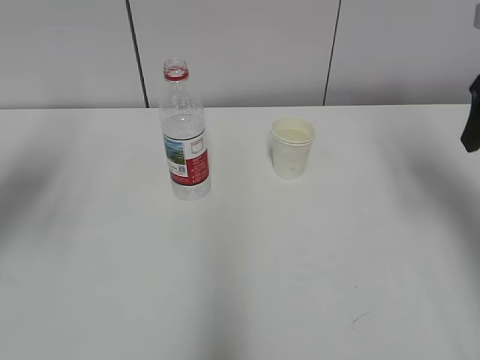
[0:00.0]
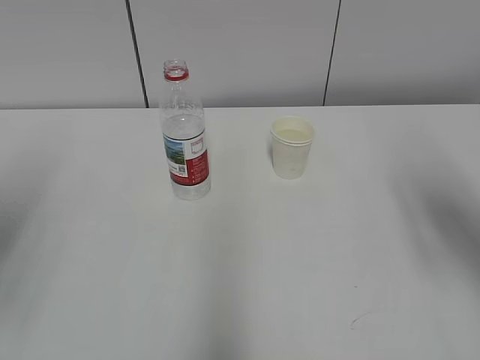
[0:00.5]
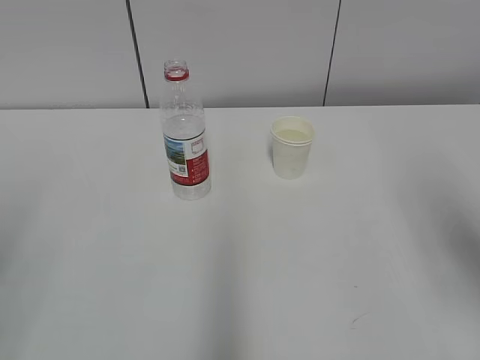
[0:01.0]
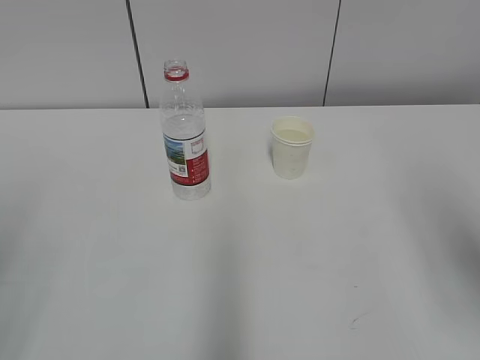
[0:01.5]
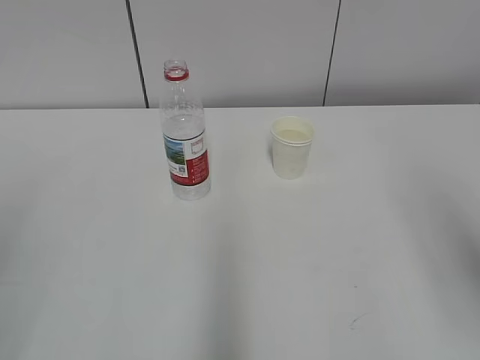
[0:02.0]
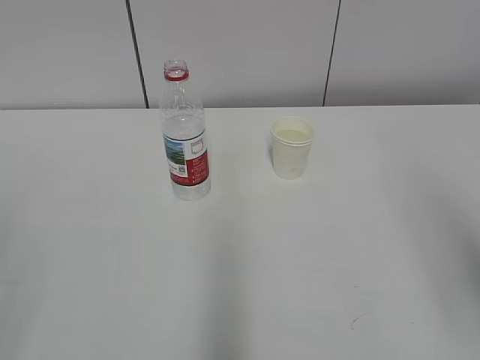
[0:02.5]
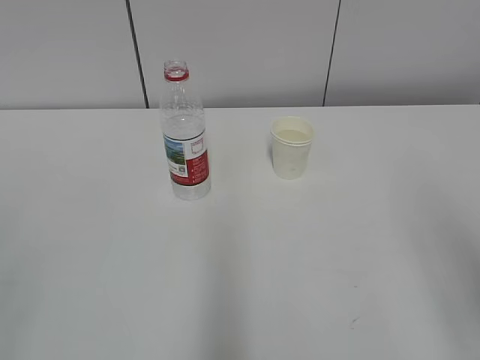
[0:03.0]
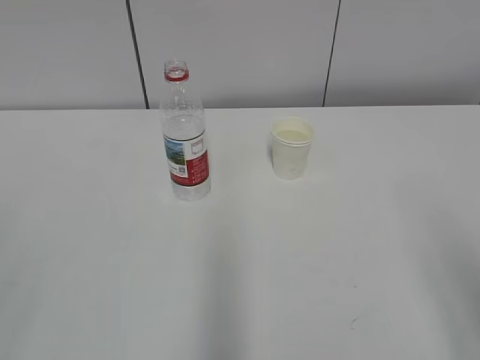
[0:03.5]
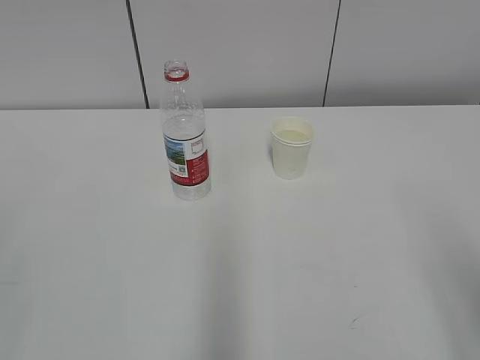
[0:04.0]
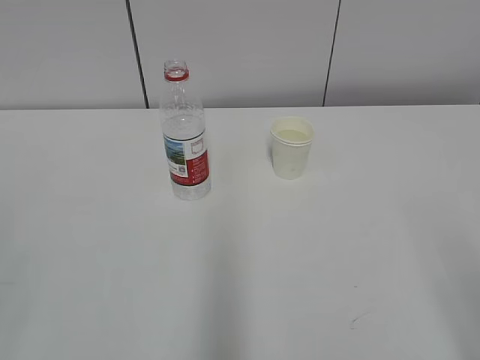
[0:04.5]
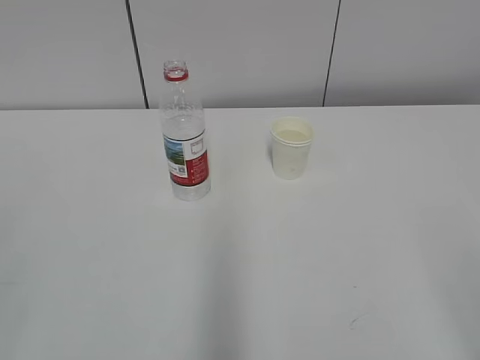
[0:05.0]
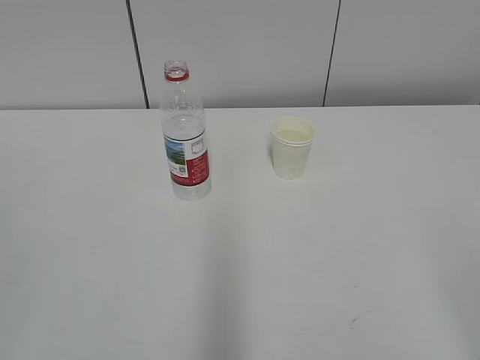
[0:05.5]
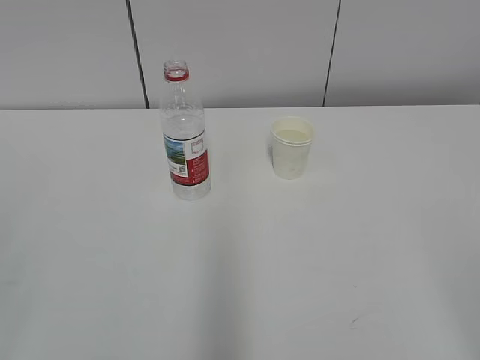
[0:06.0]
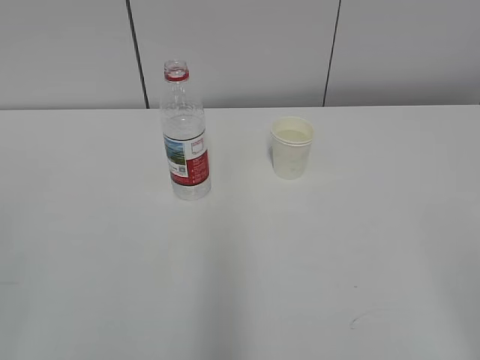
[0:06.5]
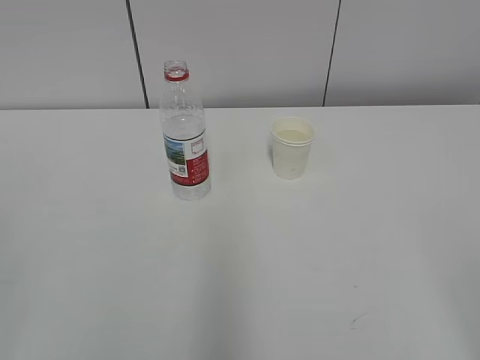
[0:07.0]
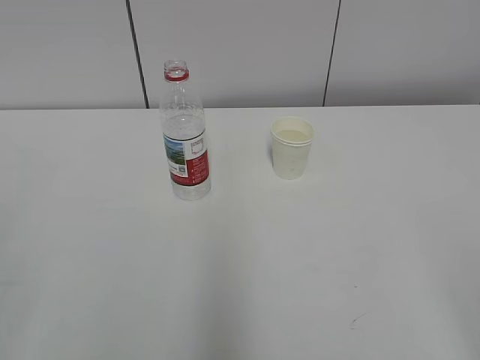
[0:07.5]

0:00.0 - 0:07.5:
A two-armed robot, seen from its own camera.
0:00.0 - 0:02.0: The grippers both shift backward by approximately 20 cm.
0:05.5 - 0:07.5: Both grippers stay put.
